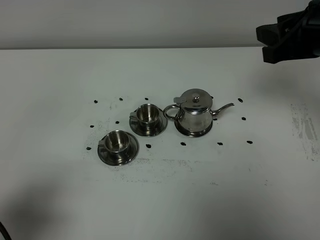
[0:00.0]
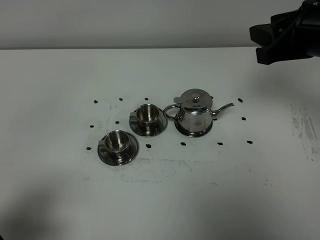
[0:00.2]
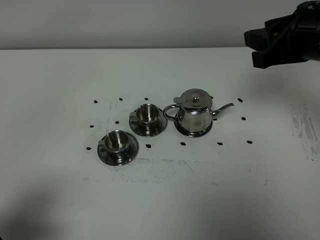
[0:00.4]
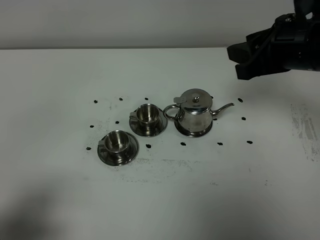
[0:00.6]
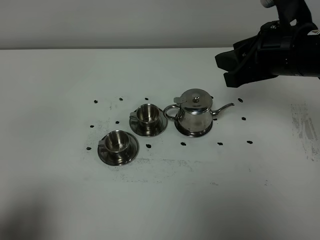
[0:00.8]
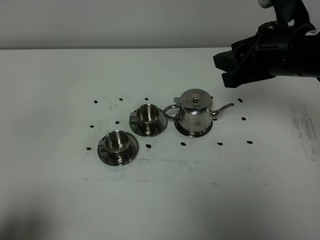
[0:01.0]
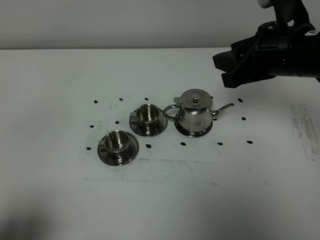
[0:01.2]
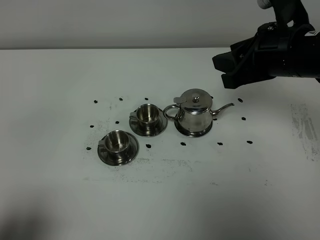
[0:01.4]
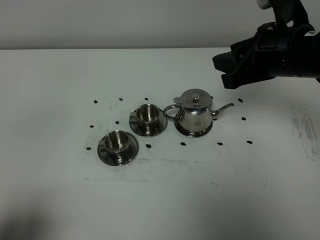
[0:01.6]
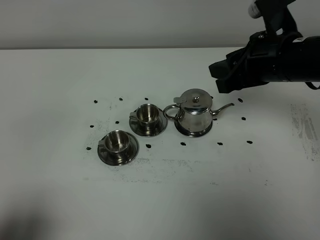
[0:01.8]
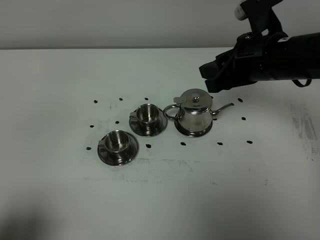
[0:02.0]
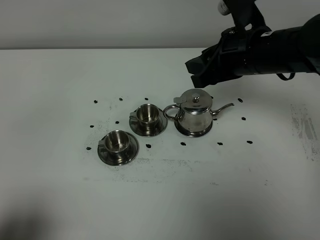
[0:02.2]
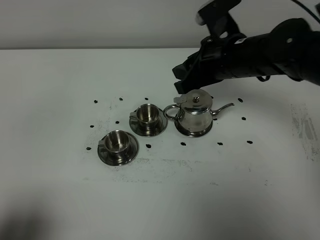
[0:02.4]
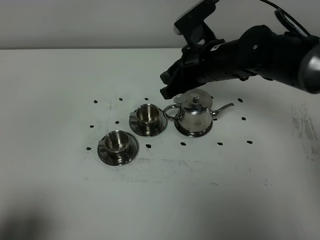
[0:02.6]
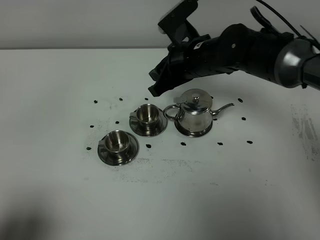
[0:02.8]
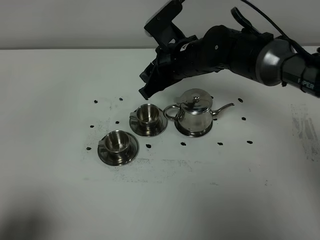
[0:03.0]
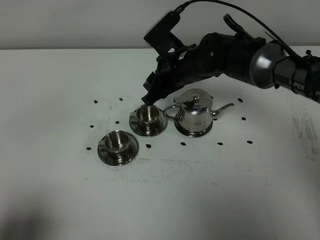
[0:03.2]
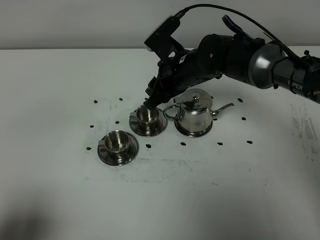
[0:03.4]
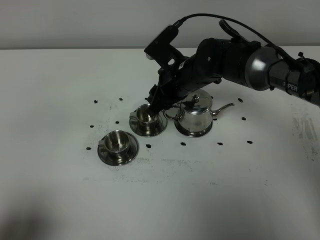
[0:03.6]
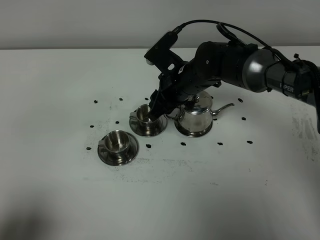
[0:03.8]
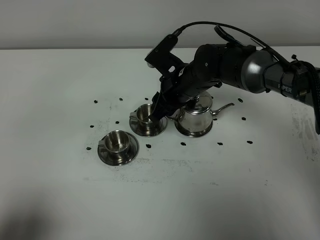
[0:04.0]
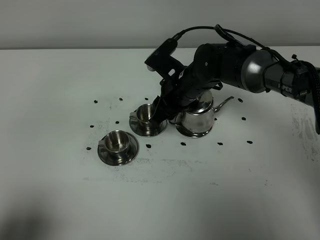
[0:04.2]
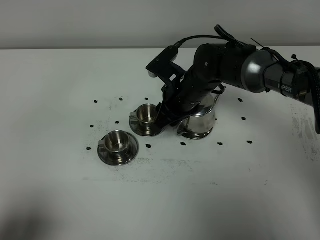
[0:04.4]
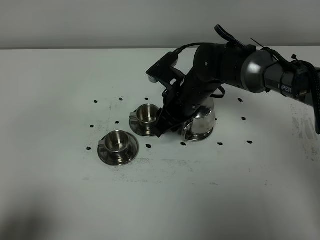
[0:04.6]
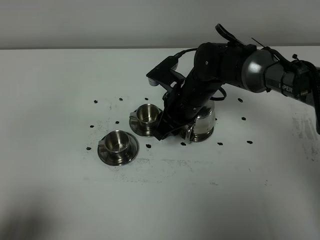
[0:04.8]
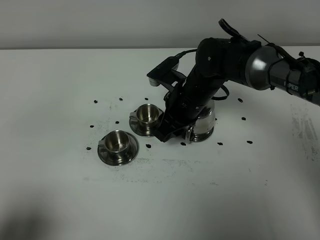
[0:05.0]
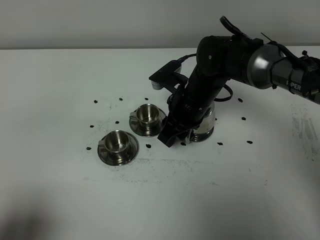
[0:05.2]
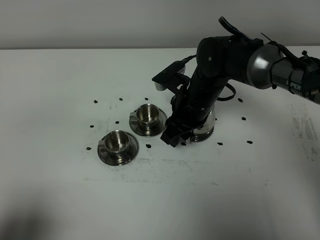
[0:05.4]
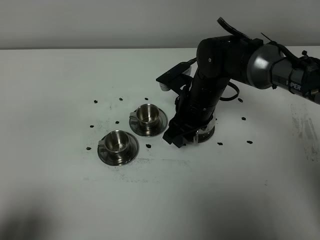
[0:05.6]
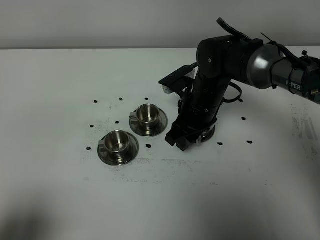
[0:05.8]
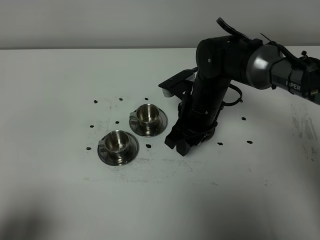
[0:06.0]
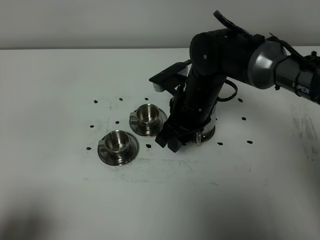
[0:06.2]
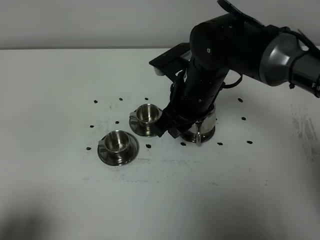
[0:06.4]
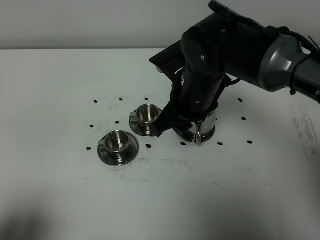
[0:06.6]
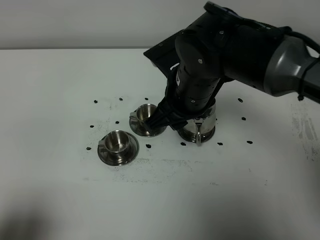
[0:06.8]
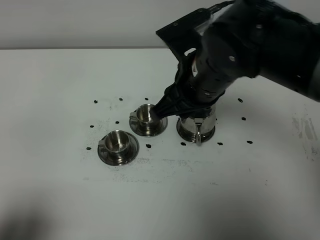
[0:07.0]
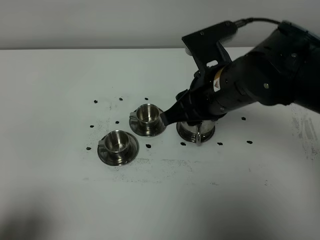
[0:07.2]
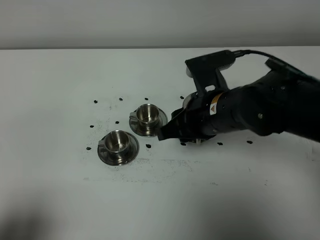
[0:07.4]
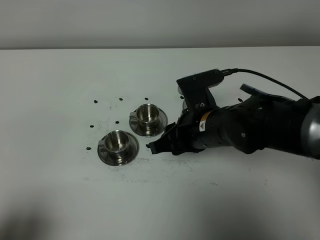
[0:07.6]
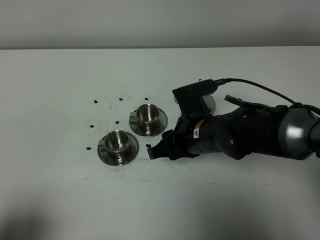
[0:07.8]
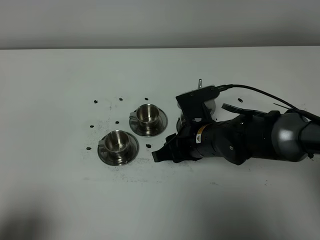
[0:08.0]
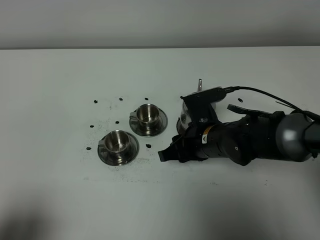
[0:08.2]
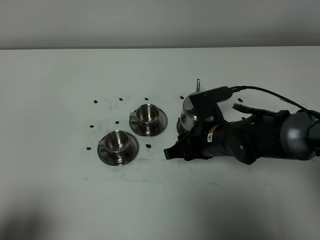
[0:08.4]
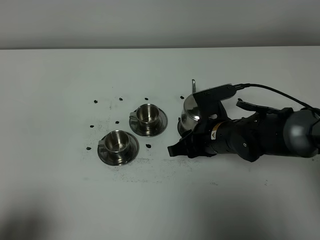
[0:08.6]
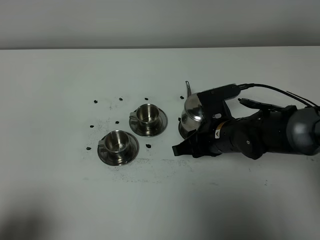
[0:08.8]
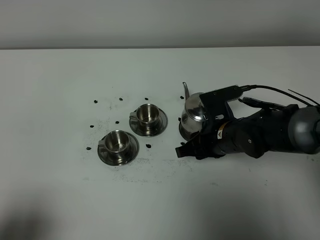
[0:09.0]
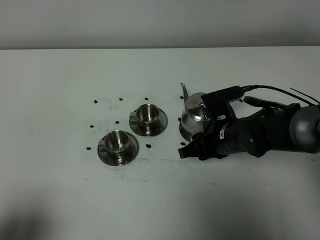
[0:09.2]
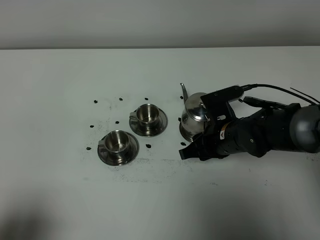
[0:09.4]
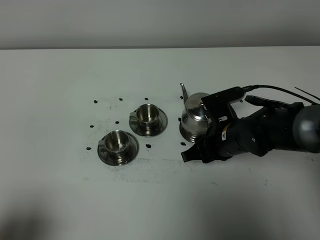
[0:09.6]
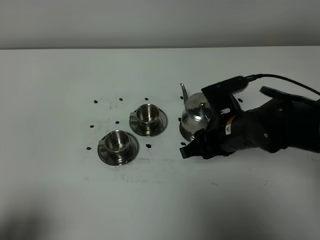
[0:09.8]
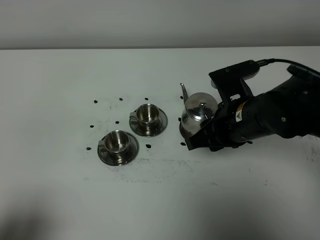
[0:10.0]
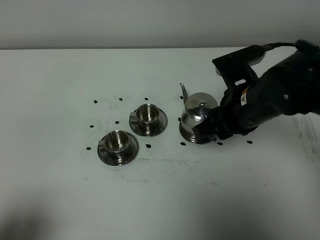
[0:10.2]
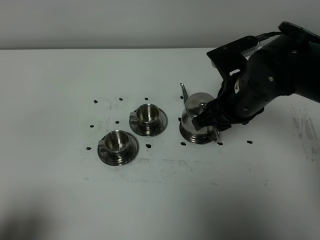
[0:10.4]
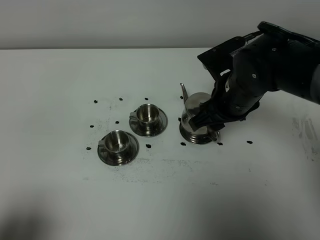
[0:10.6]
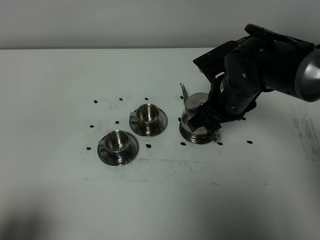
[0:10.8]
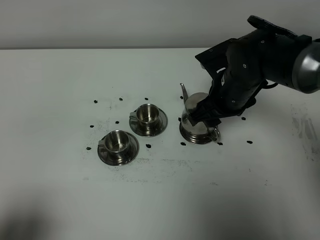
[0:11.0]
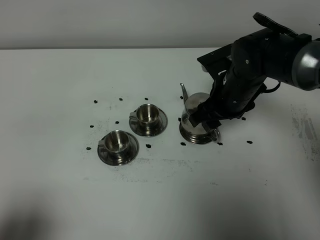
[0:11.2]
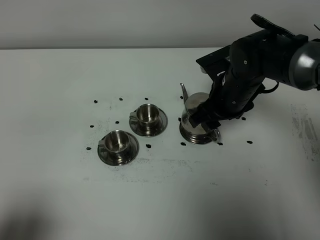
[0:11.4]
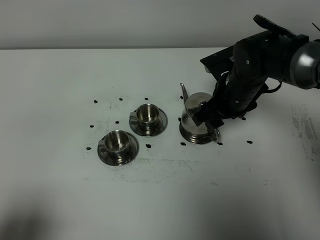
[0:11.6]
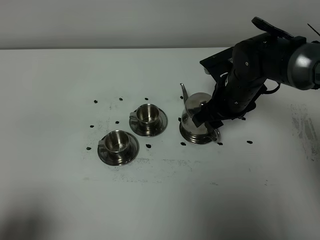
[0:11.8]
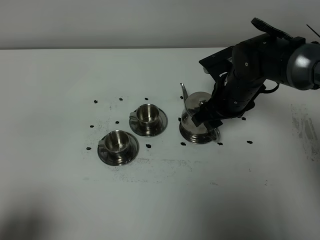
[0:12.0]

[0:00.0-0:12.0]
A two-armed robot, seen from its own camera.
Task of the whole recording: grasp the stainless steel teapot and pour the tea into the two stainless steel teacups one by one, put the stainless steel teapot back in its original place.
0:00.0 to 0:01.6: The right gripper ends up approximately 5 cm from where it was. Meanwhile the left gripper heads backward, covering roughly 5 cm.
0:01.6 to 0:03.0: The right gripper heads to the left, downward and forward, covering roughly 20 cm.
0:03.0 to 0:04.4: The right gripper moves downward, approximately 5 cm.
0:06.0 to 0:07.6: The right gripper moves backward, roughly 10 cm, and reaches some 15 cm upward, then returns.
0:07.6 to 0:09.0: The right gripper travels downward by roughly 5 cm.
0:09.0 to 0:10.4: The right gripper travels upward by roughly 10 cm.
0:10.4 to 0:12.0: The right gripper heads forward and downward, covering some 10 cm.

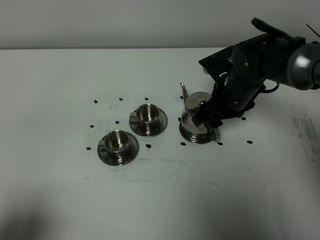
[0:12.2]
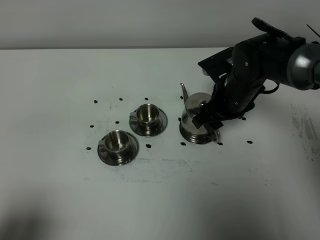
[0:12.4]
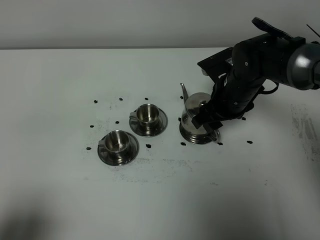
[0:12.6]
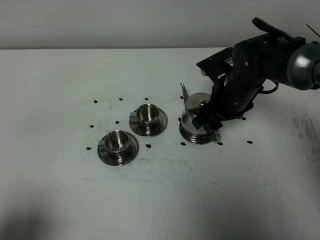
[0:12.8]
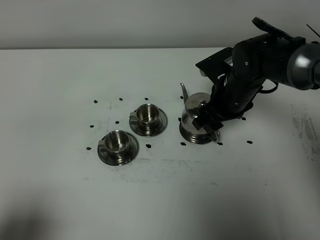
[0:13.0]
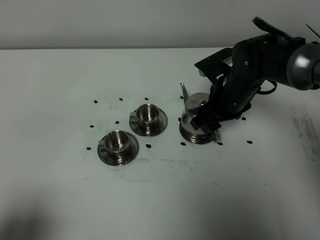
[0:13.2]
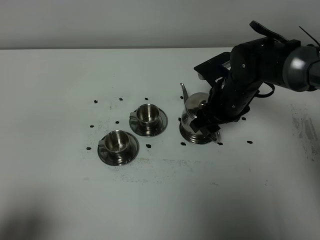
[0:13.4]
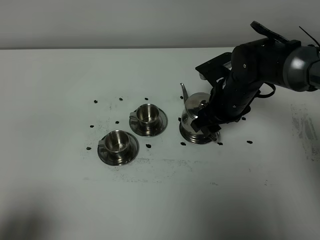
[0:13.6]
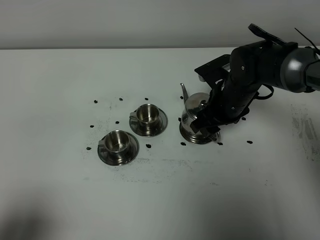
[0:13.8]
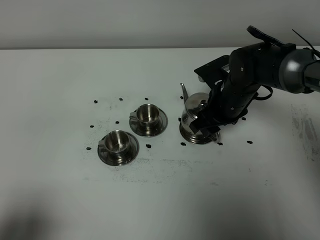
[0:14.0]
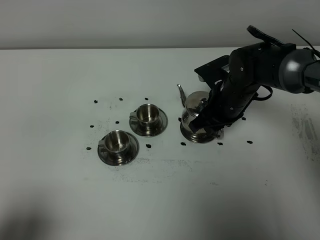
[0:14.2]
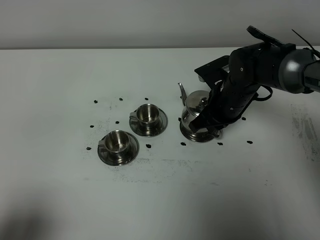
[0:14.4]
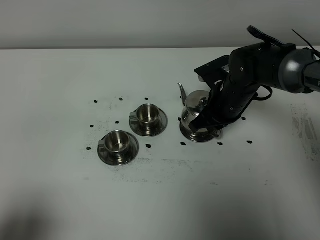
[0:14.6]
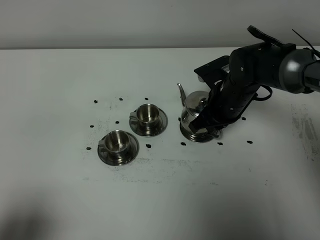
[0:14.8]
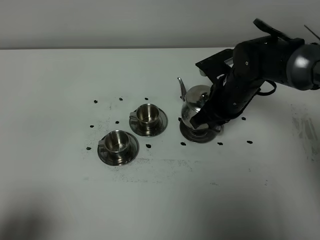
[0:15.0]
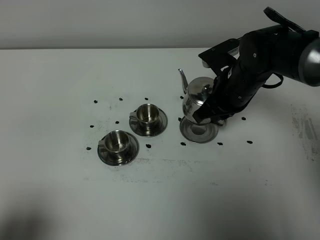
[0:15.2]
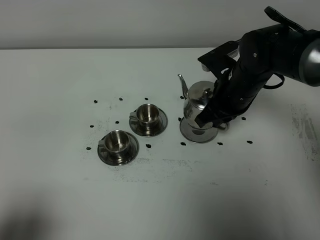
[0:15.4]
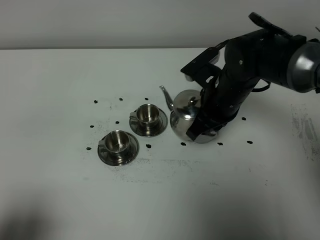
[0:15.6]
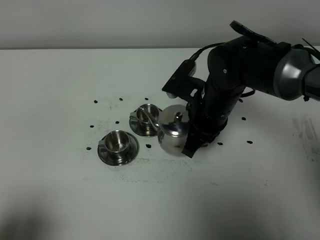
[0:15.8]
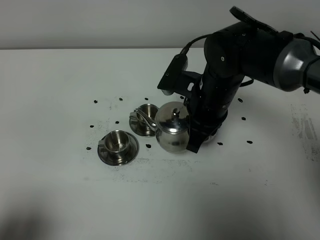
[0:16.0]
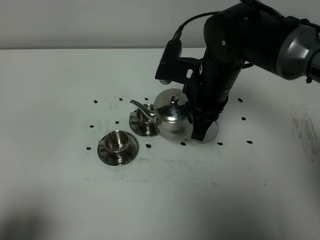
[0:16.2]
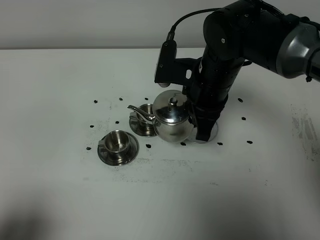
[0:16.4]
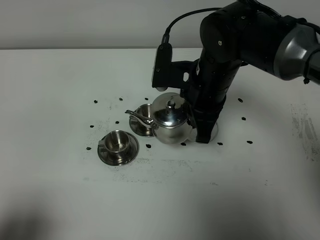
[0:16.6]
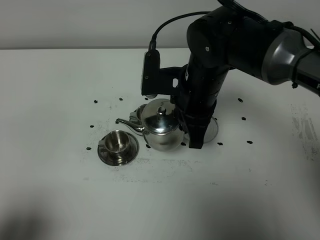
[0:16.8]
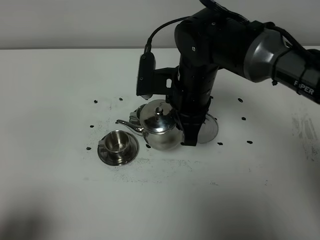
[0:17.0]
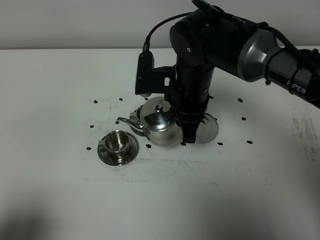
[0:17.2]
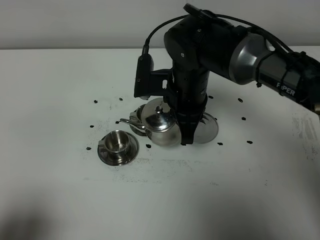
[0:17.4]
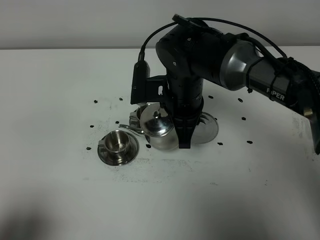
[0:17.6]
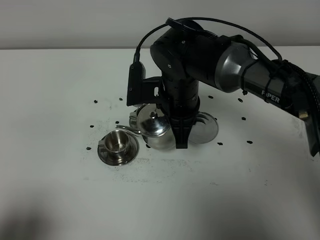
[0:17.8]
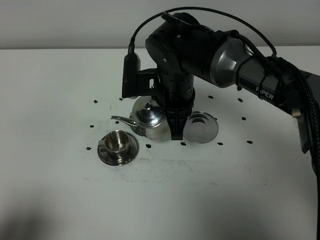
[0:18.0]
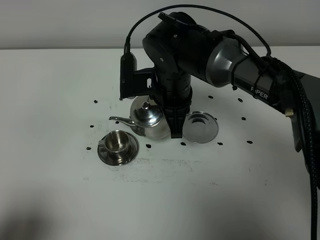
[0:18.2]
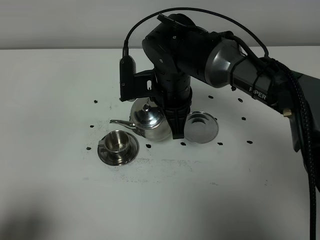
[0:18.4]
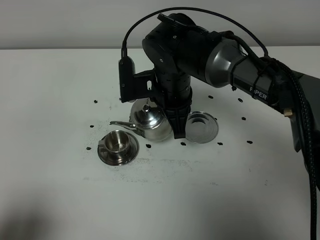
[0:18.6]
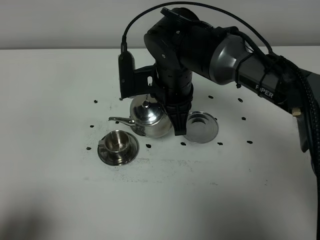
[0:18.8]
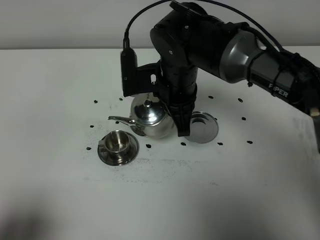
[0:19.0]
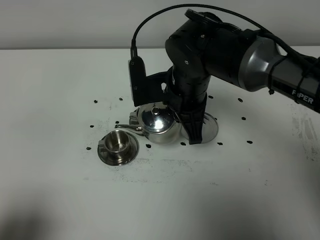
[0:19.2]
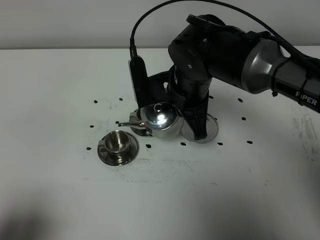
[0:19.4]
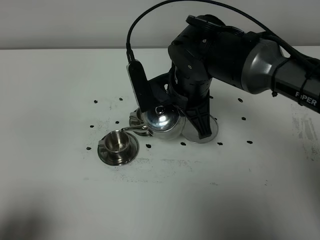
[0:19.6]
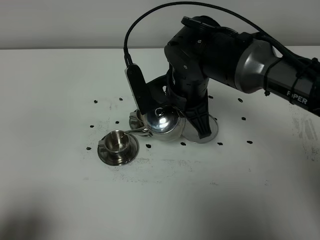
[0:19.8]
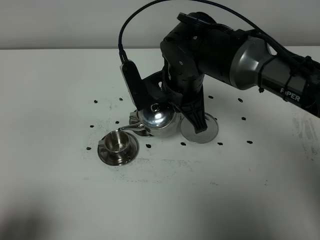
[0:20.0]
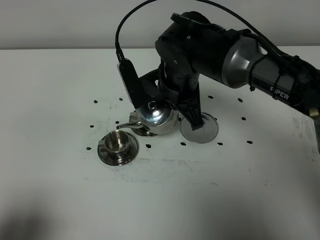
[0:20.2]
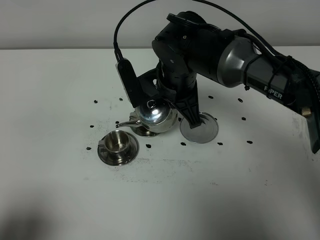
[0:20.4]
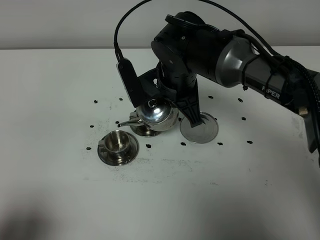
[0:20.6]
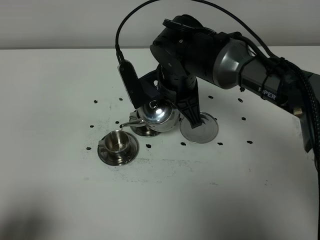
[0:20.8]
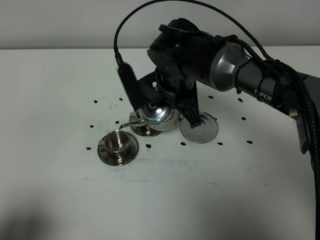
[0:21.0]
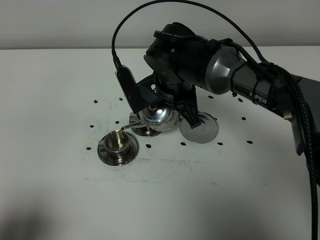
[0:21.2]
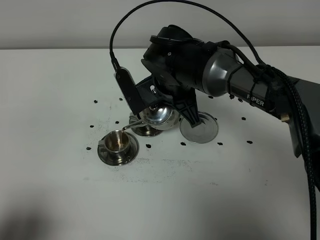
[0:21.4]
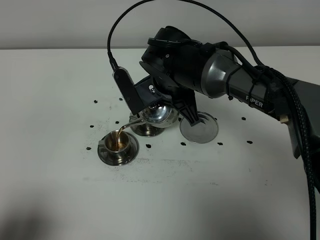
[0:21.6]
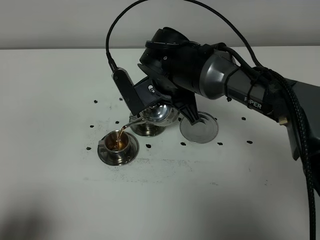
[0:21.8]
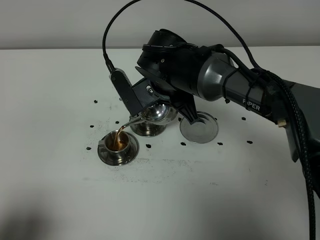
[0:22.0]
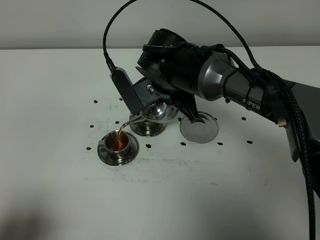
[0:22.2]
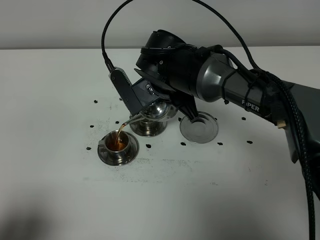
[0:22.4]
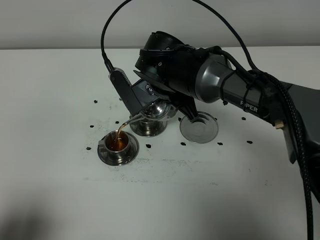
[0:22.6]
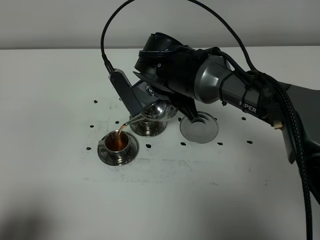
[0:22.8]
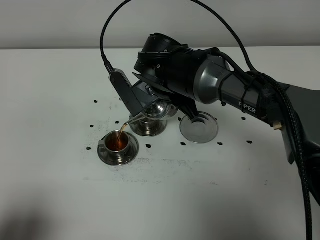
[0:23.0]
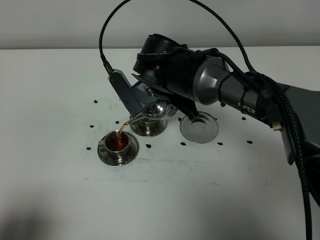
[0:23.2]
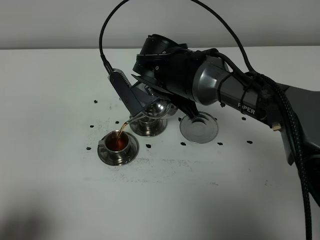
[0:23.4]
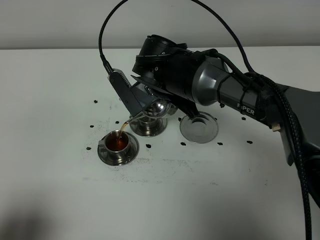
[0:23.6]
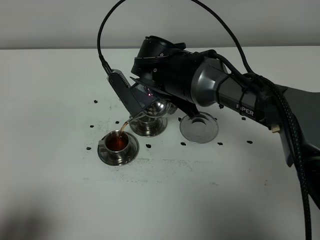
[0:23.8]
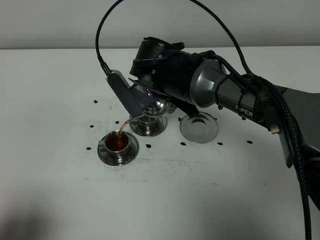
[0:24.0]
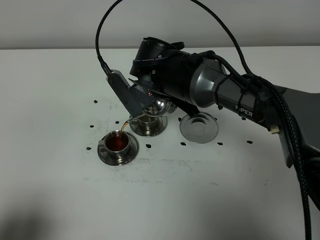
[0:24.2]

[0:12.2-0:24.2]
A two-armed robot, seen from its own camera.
Task of the whole recording: grasp the stainless steel teapot and pour the tea into the two stainless steel teacups one by one, put the stainless steel teapot back in its original place.
Step, 0:12.2 to 0:15.0: Pick up the teapot with the right gripper.
0:12.2 to 0:13.8: There are only small adjustments of the grippers.
0:13.8 to 0:15.2: The right gripper closes.
0:15.2 to 0:16.6: The right gripper heads to the left and upward, covering roughly 10 cm.
0:16.6 to 0:18.2: The right gripper is displaced to the left by approximately 5 cm.
0:18.2 to 0:19.8: The grippers make only small movements.
0:19.8 to 0:22.6: The grippers stay close to where they were, moving slightly.
0:22.6 to 0:24.2: The grippers stay close to where they were, moving slightly.
